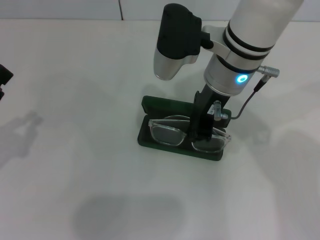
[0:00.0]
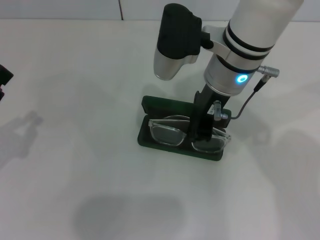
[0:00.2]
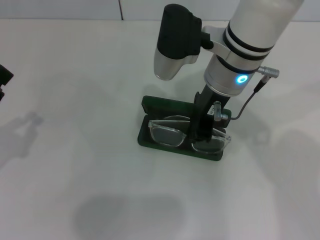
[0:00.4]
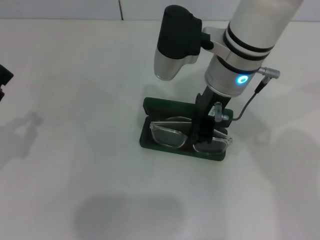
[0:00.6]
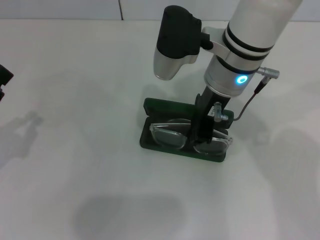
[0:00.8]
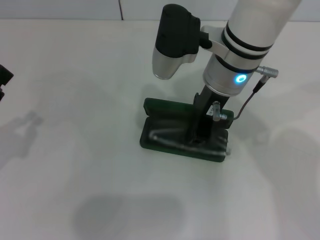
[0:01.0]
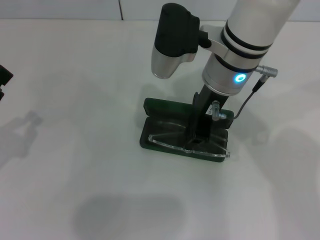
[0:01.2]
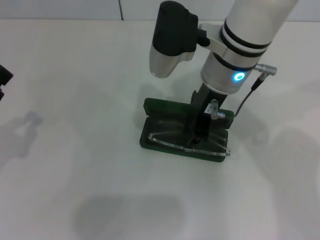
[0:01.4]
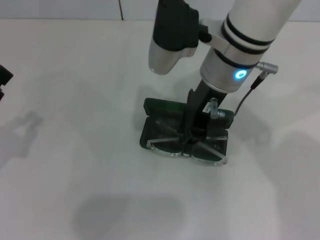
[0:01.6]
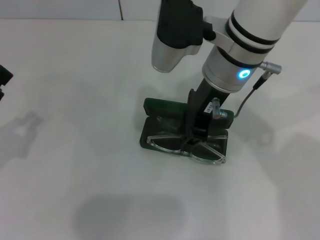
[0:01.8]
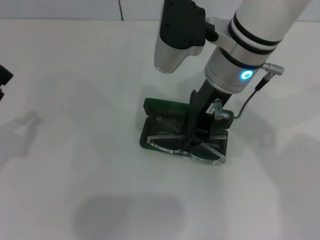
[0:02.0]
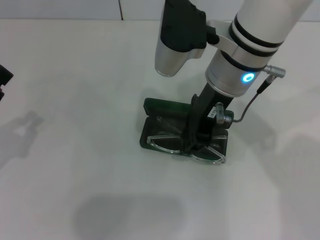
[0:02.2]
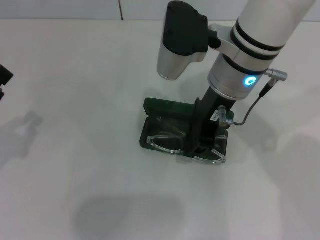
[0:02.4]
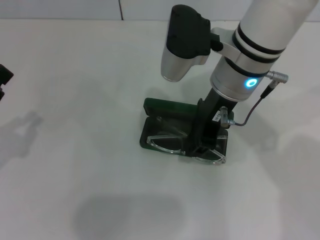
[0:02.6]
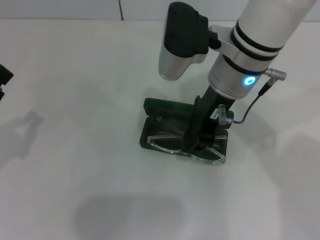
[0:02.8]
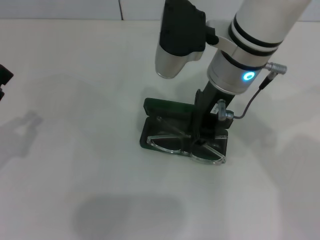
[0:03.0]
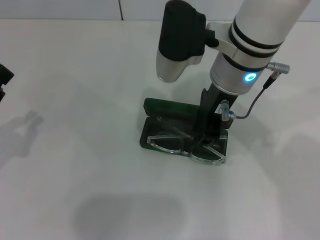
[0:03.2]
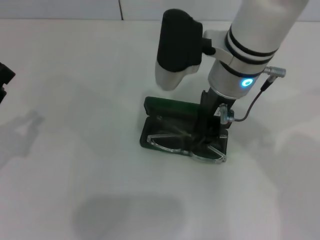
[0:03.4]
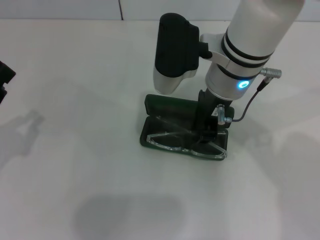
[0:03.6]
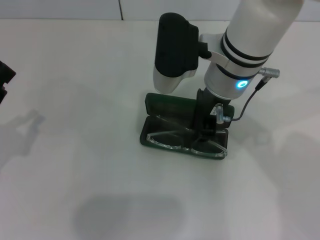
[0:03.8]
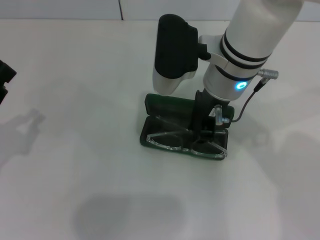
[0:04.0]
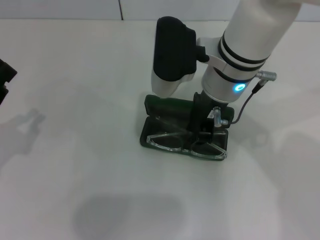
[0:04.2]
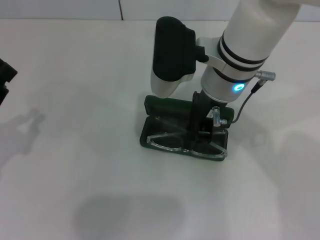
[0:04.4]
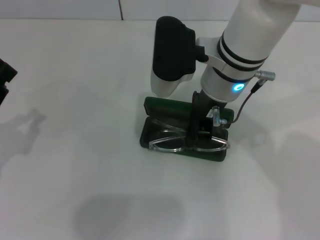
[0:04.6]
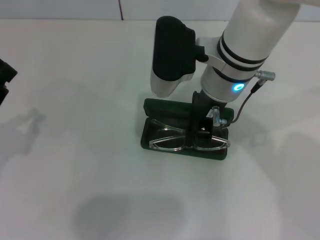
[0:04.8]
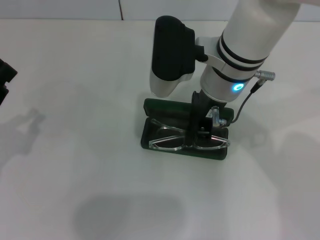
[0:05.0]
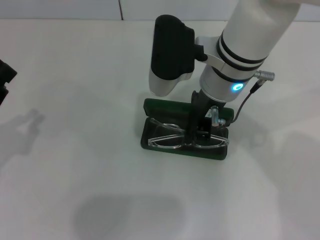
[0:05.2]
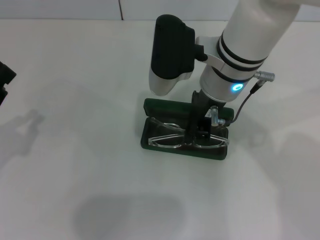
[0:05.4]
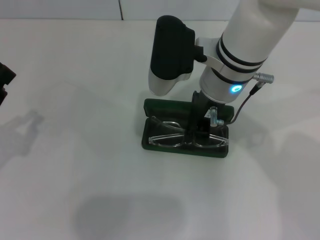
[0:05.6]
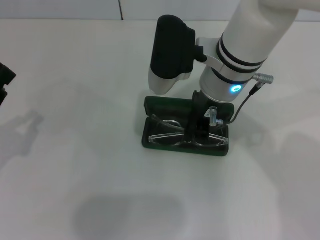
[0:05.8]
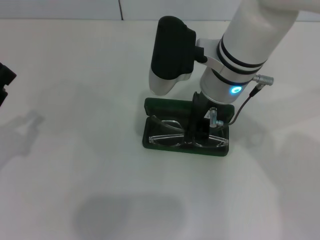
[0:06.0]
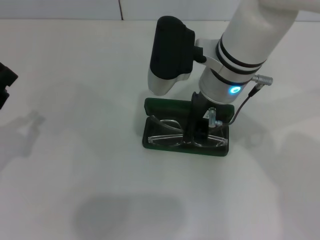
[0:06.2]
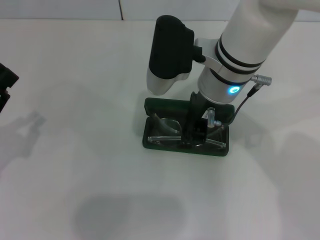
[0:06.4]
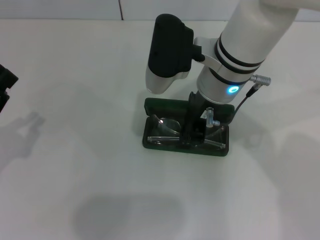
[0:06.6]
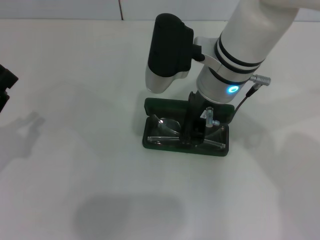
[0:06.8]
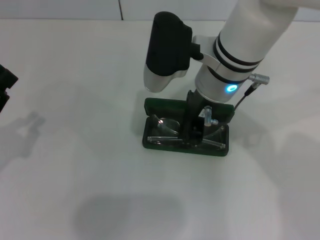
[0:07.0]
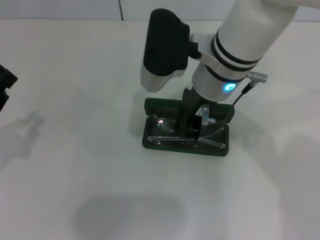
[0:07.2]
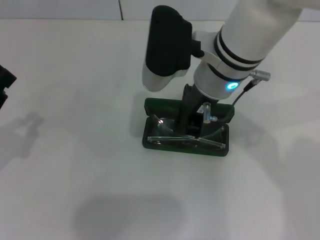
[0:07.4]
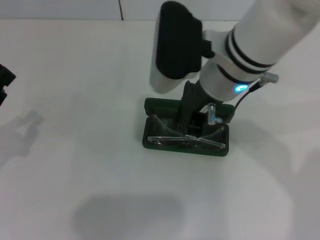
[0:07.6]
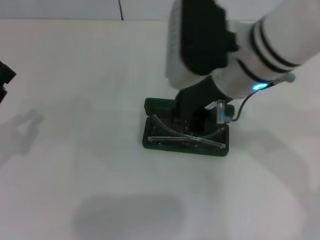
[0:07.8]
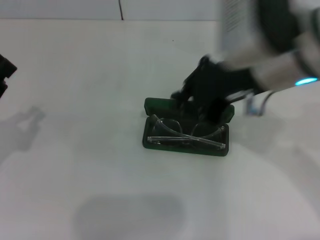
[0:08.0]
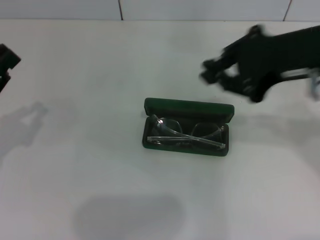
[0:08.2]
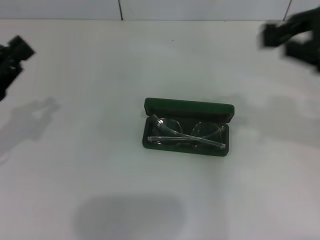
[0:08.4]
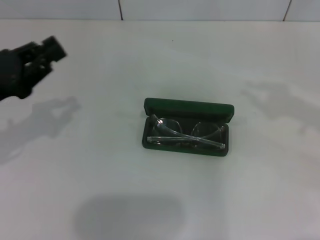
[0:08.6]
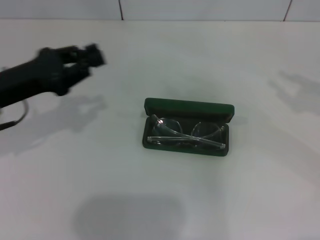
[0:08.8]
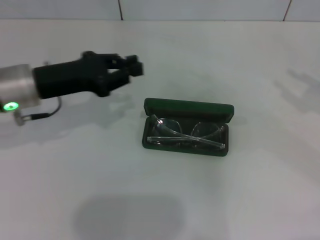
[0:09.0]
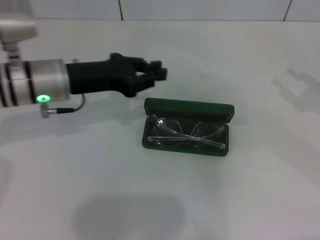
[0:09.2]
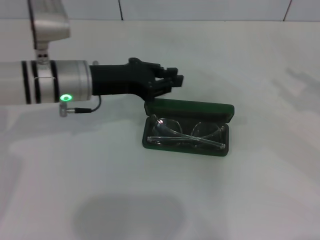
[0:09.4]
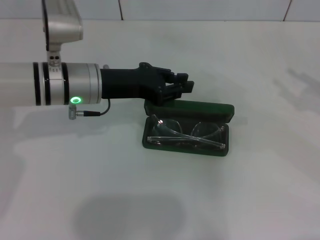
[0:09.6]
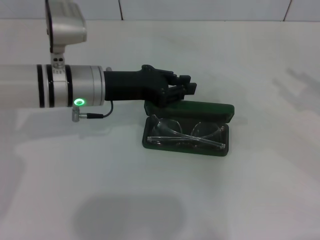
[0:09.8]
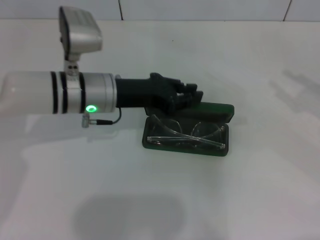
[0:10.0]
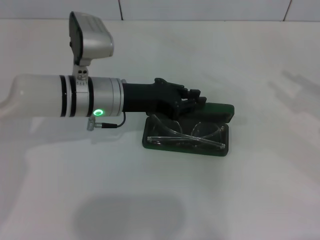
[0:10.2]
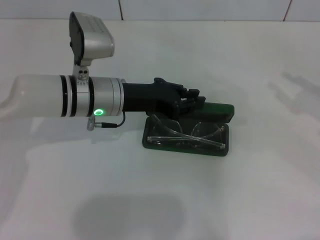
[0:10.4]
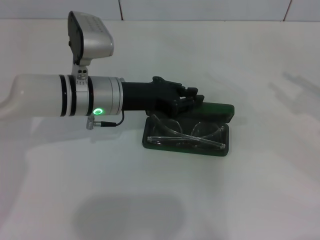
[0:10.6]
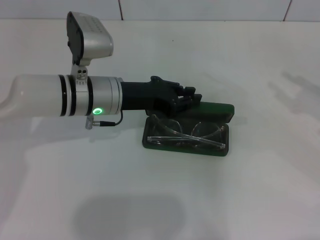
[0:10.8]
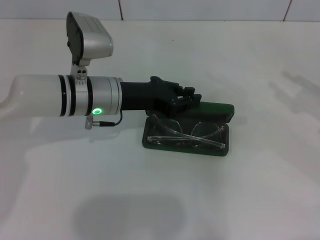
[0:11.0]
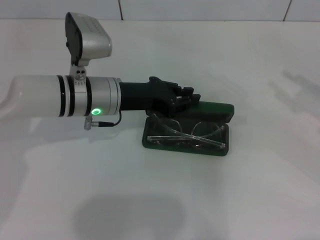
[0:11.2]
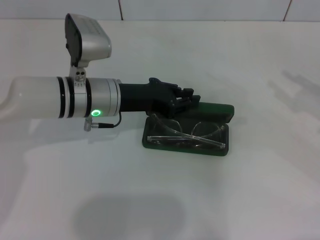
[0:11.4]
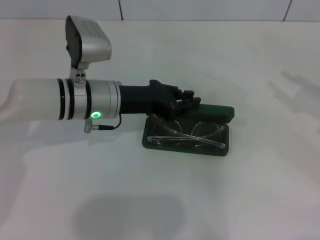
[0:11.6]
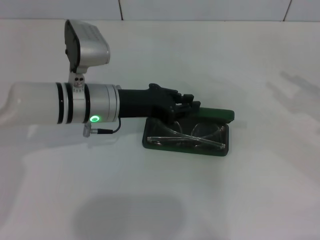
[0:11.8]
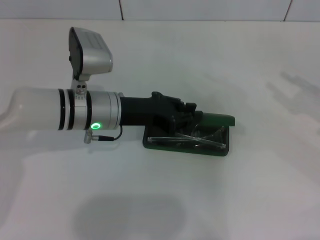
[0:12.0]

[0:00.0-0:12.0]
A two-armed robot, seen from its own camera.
Step, 0:00.0 to 0:06.8: Put the glasses into the case with your right hand.
0:00.0 to 0:04.4: The grippers move only a little.
0:04.4 to 0:06.0: The two grippers keep their place.
0:06.0 to 0:07.6: The grippers stay close to where they were, moving slightly.
0:07.6 to 0:09.0: The left gripper travels forward and to the right by roughly 15 cm, while the right gripper shifts approximately 35 cm to the right, and opens its fingers.
0:09.0 to 0:10.4: The left gripper travels to the right by some 10 cm.
0:10.4 to 0:12.0: The grippers move only a little.

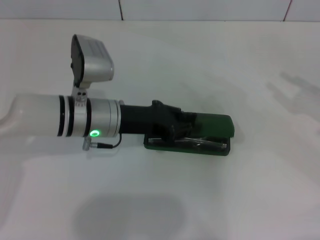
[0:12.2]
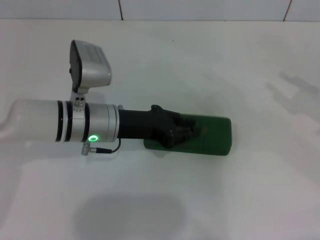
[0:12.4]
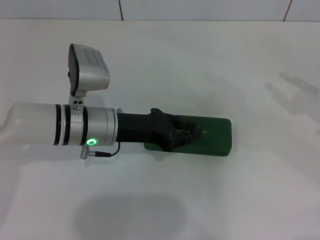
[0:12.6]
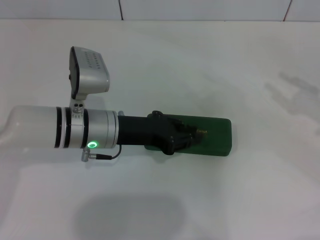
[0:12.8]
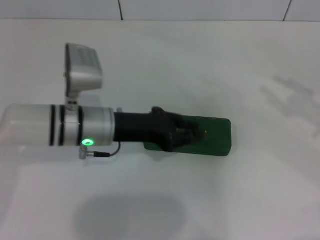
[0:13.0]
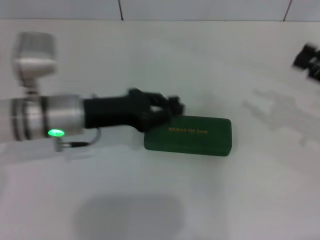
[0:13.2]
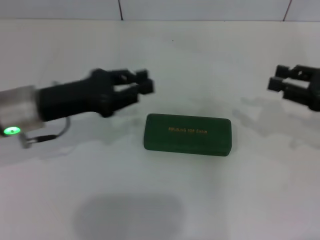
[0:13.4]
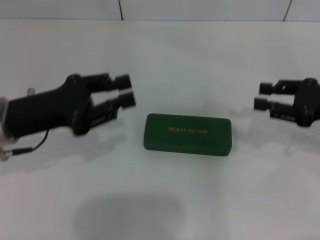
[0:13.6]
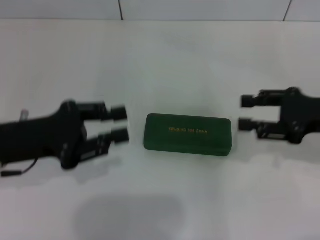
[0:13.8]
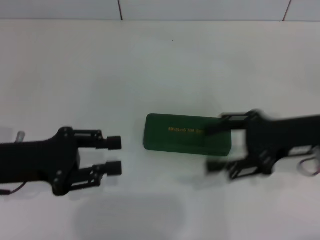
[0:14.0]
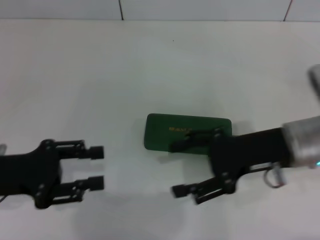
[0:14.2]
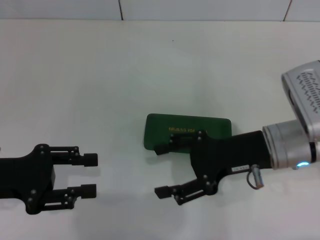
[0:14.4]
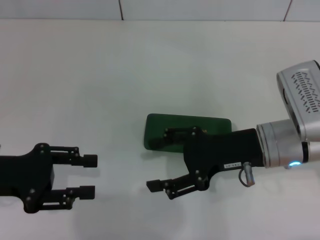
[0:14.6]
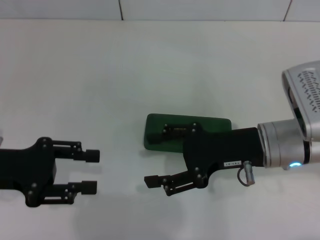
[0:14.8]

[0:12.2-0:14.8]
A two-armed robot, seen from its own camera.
0:12.2 to 0:13.4: The left gripper heads to the left, covering approximately 10 cm; the right gripper is displaced to the left by about 5 cm.
0:13.4 to 0:14.8: The right gripper is displaced to the left by about 15 cm, and opens up, while the left gripper goes some 10 cm to the left and backward, and opens.

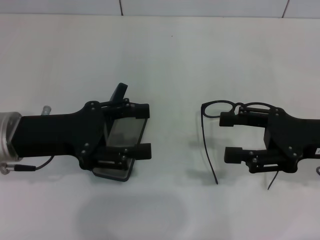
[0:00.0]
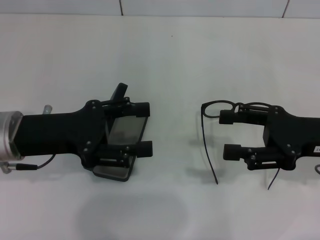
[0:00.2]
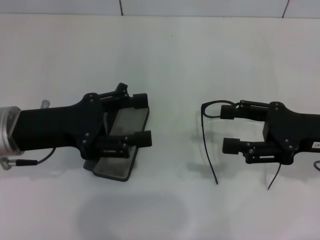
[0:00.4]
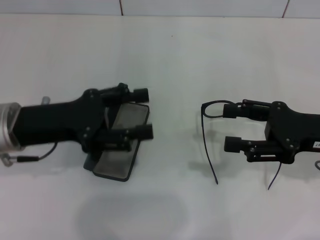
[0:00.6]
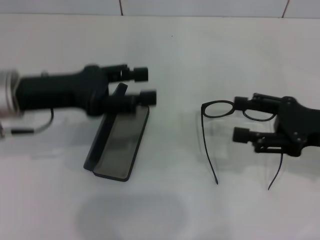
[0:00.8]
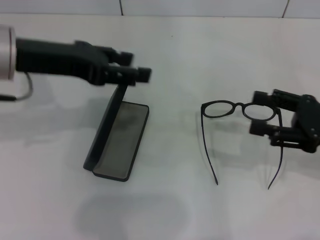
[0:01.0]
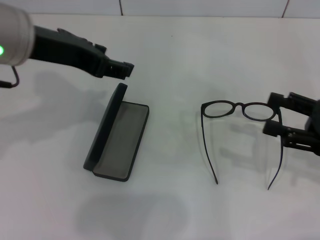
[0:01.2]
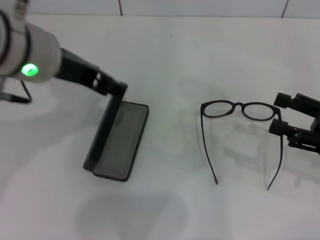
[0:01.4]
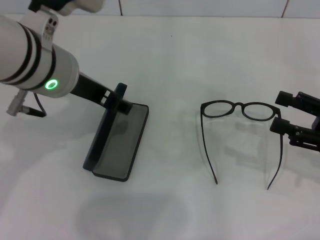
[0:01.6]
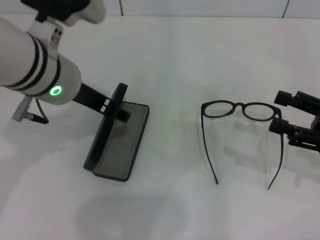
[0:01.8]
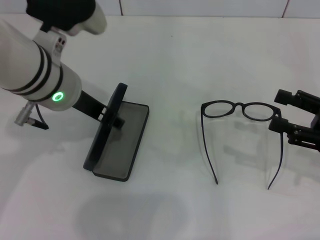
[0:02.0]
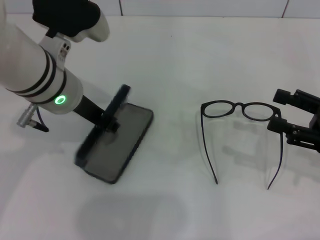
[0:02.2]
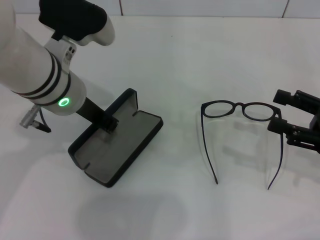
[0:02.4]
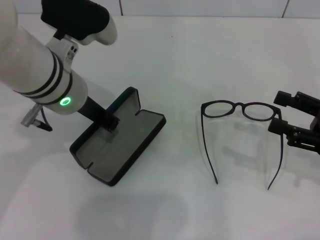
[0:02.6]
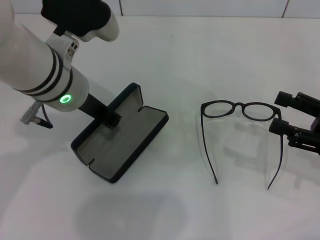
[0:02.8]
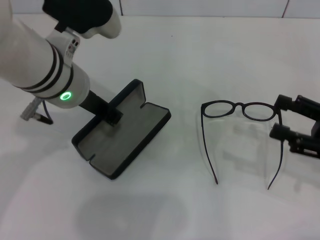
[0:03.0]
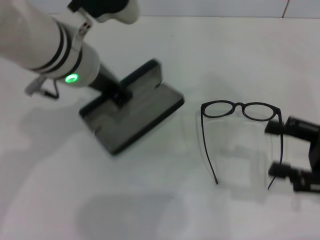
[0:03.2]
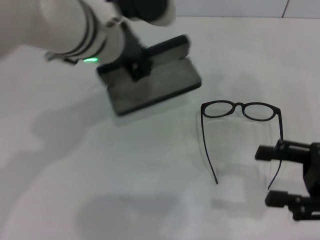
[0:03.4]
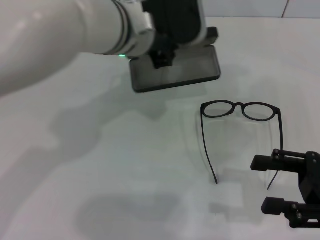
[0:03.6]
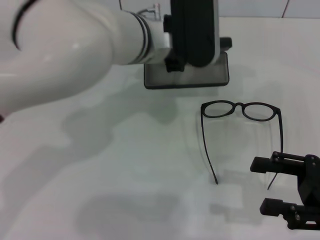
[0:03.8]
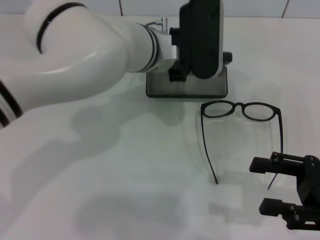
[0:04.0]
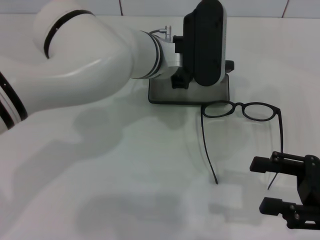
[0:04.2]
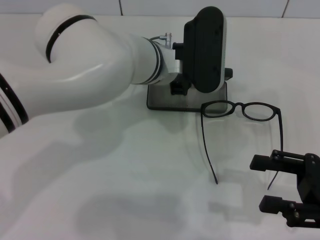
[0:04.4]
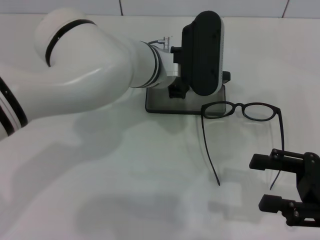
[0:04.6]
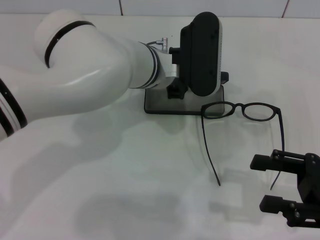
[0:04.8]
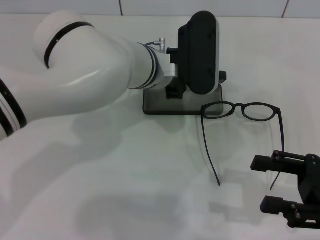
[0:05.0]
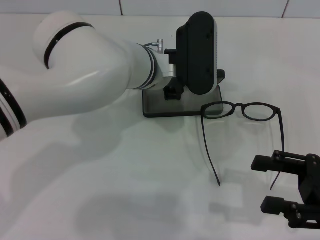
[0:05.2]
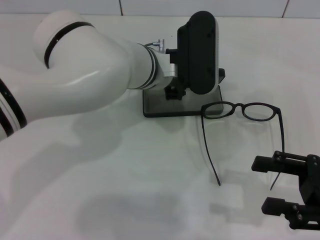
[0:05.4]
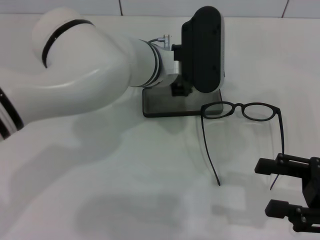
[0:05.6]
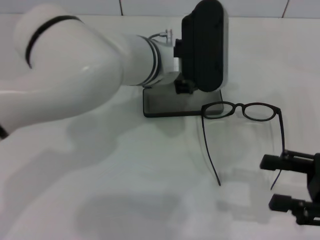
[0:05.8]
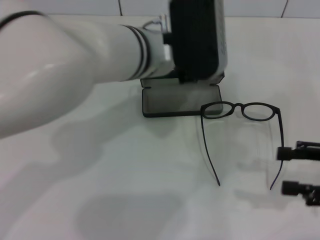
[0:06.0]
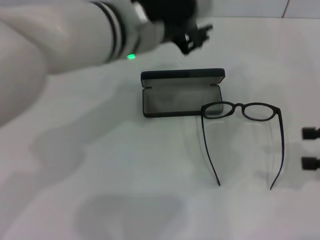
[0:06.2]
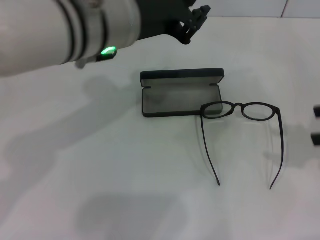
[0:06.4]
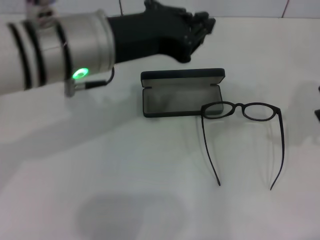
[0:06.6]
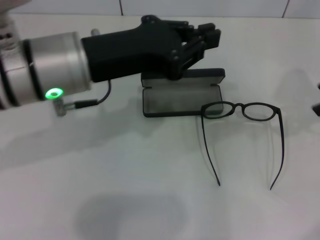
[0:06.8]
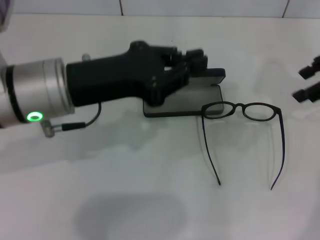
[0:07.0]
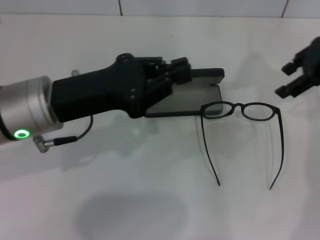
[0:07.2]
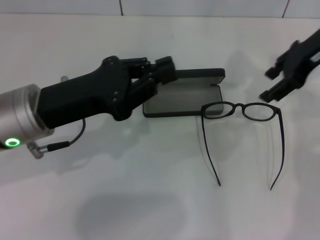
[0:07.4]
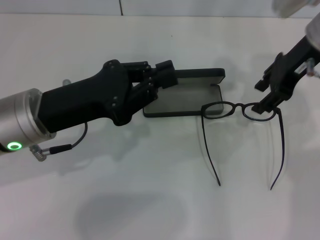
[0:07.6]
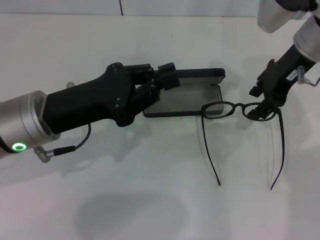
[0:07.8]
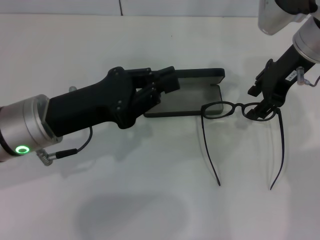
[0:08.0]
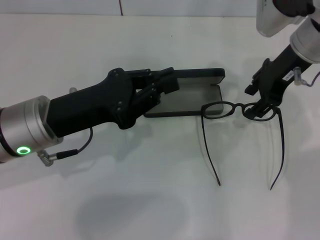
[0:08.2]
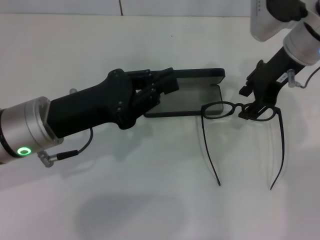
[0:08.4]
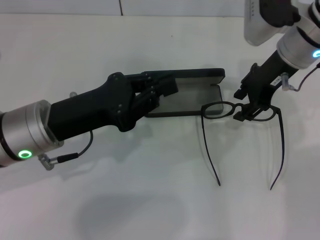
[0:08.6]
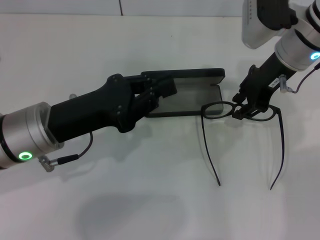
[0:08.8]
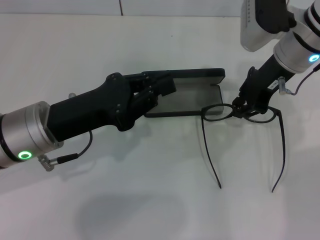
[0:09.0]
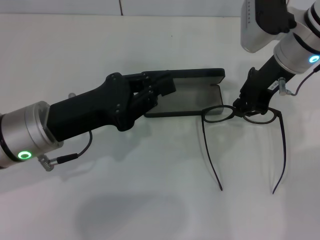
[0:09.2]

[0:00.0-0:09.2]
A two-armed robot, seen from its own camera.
Step, 0:00.0 to 0:02.0: Grab the glasses case with your left hand.
Step, 0:02.4 to 0:05.6: Place the glasses case in the center of the table with your left hand.
0:00.0 to 0:01.6: The right gripper is displaced to the right by some 5 cm, while the left gripper moves to the right and upward, roughly 15 cm.
0:01.6 to 0:03.0: The left gripper closes.
0:03.0 to 0:04.6: The left gripper moves to the right, approximately 10 cm.
0:04.6 to 0:06.2: The left gripper is displaced upward by roughly 10 cm, while the right gripper moves to the right and upward, about 10 cm.
0:06.2 to 0:07.6: The right gripper moves forward and to the left, some 25 cm; the left gripper heads to the left, downward and backward, covering approximately 15 cm, and closes its fingers.
0:07.6 to 0:09.2: The right gripper closes up.
